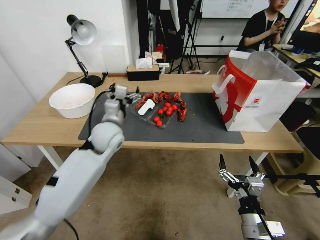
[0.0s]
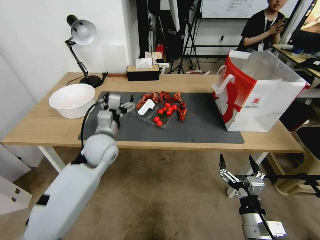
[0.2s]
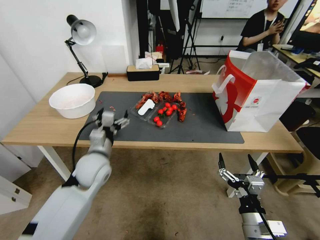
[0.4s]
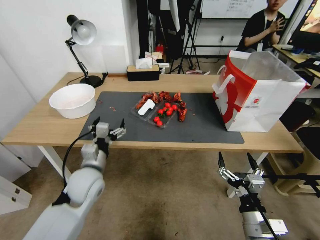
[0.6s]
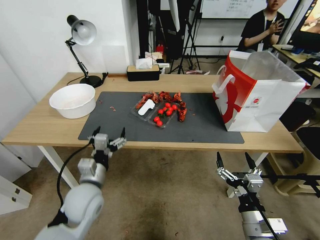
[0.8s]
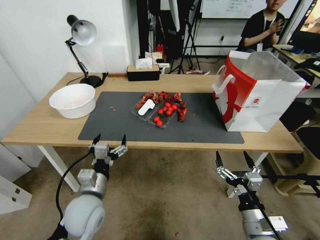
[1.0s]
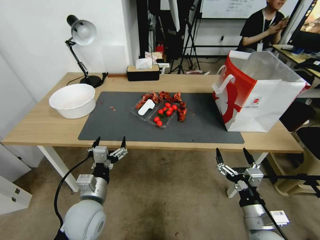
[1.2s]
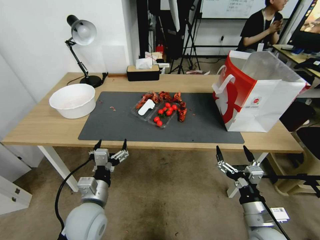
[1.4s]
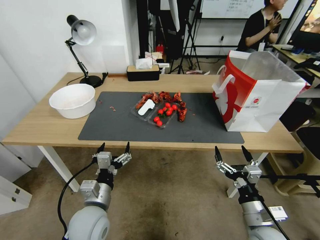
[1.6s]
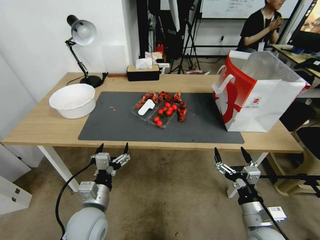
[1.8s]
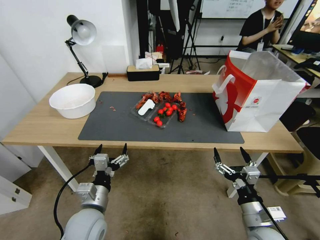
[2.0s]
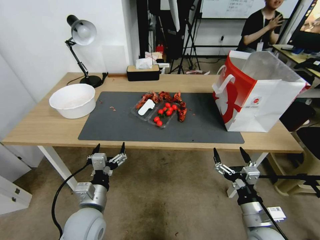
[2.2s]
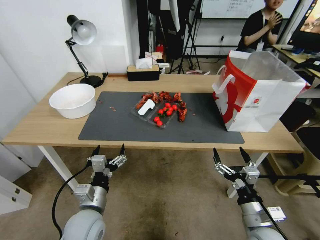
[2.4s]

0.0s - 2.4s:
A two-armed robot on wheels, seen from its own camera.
0.0s - 1.2s: The left gripper moves backward and downward, some 20 cm.
1.2s - 2.4s: The grippers move only a little.
